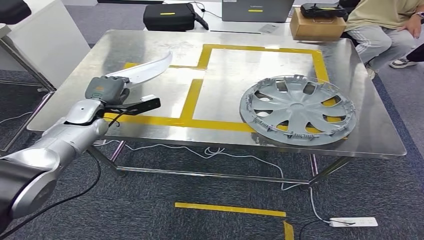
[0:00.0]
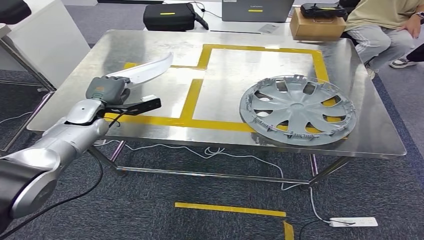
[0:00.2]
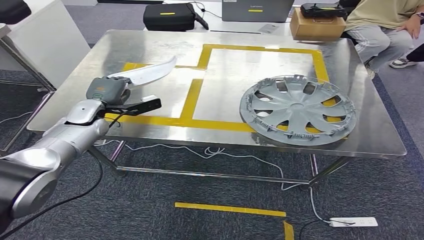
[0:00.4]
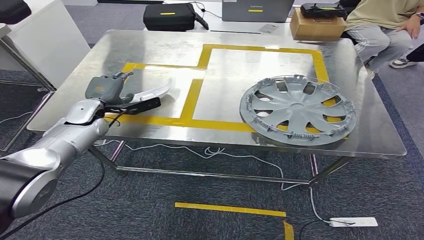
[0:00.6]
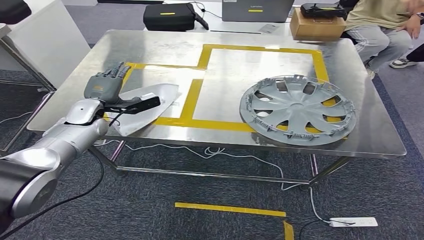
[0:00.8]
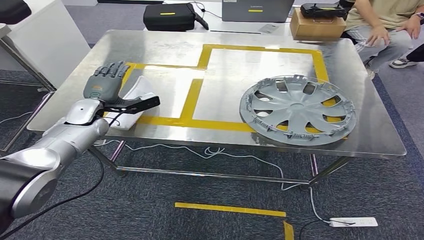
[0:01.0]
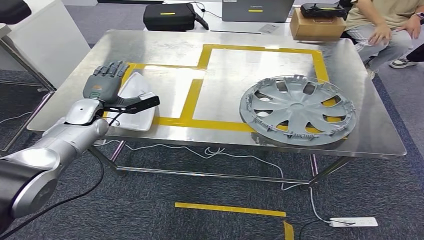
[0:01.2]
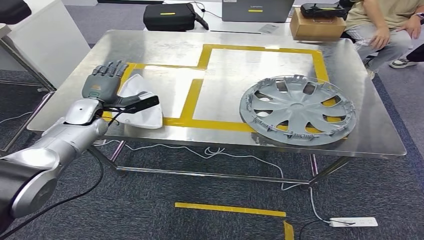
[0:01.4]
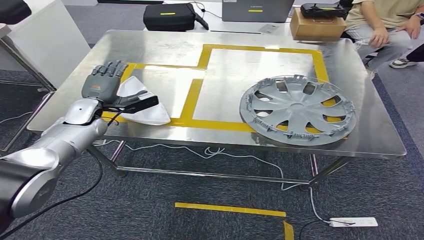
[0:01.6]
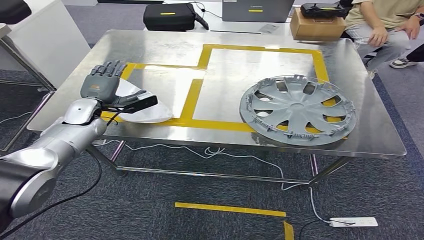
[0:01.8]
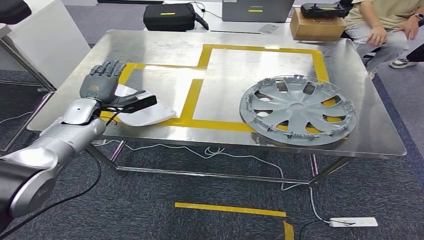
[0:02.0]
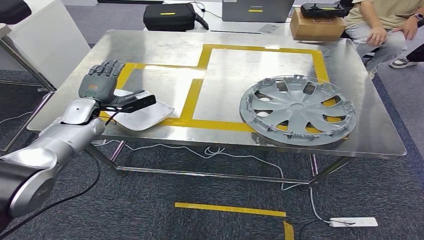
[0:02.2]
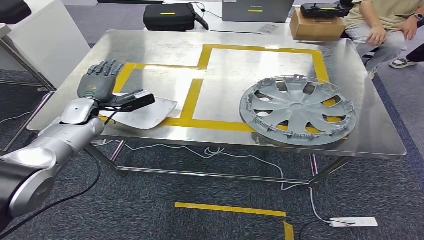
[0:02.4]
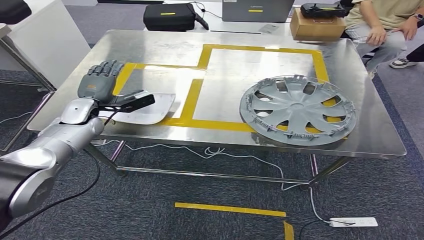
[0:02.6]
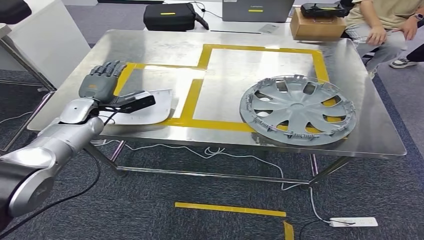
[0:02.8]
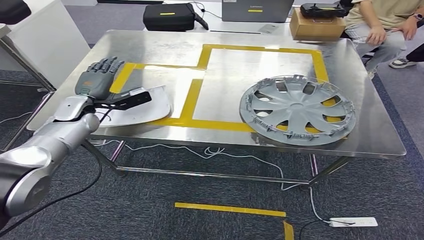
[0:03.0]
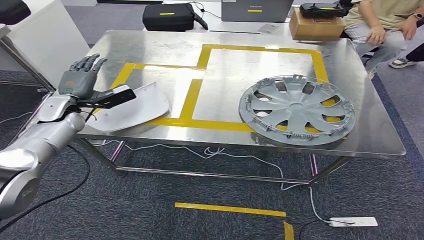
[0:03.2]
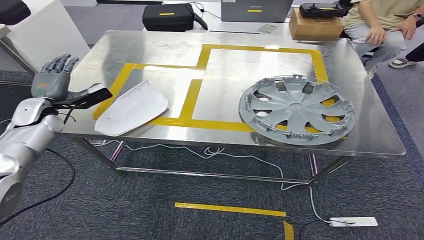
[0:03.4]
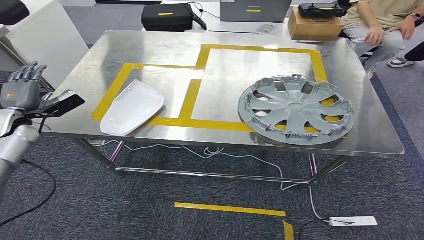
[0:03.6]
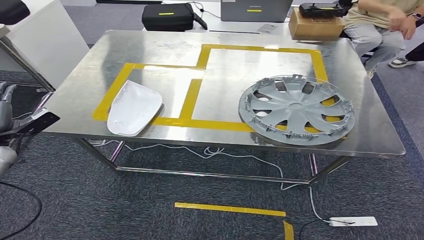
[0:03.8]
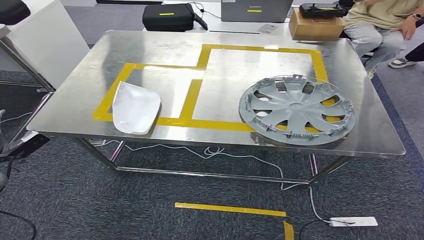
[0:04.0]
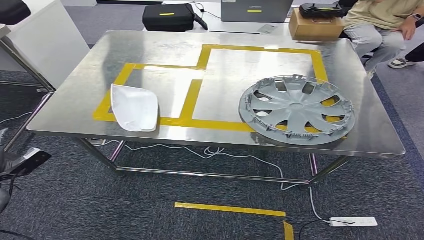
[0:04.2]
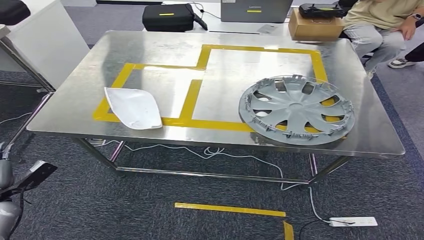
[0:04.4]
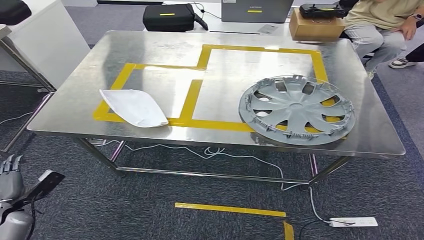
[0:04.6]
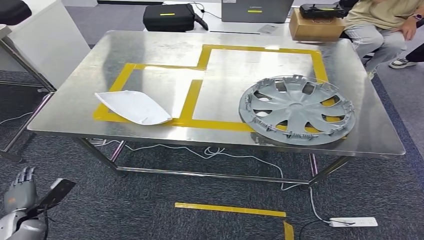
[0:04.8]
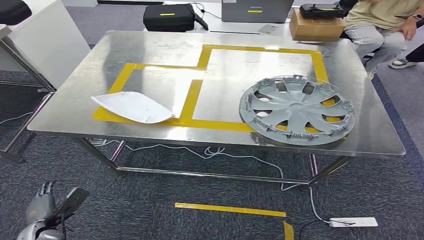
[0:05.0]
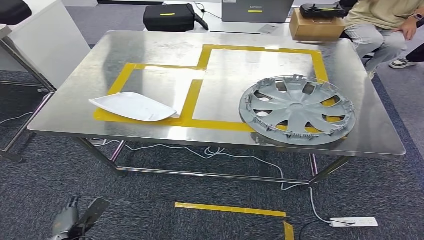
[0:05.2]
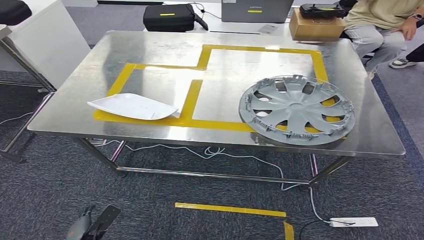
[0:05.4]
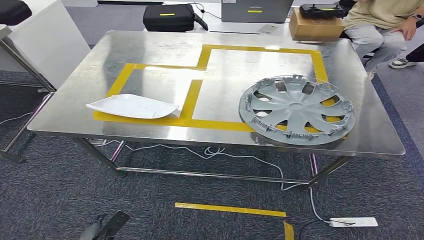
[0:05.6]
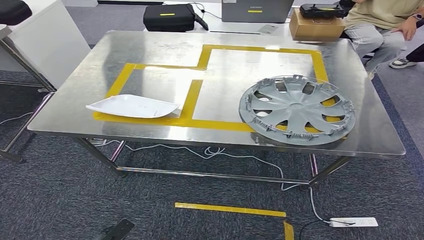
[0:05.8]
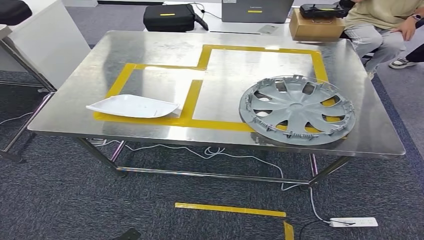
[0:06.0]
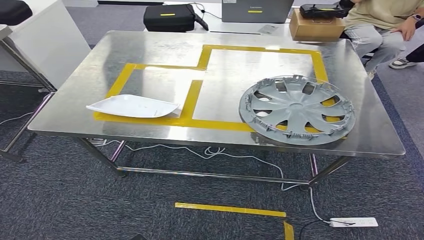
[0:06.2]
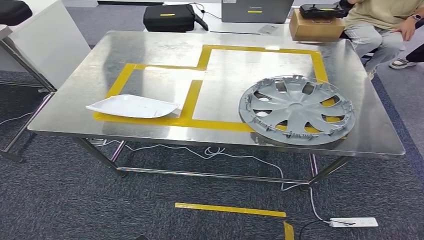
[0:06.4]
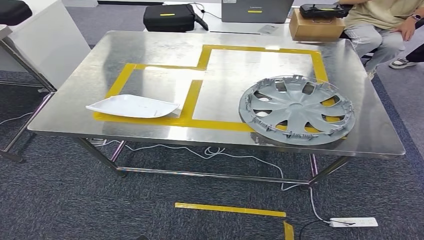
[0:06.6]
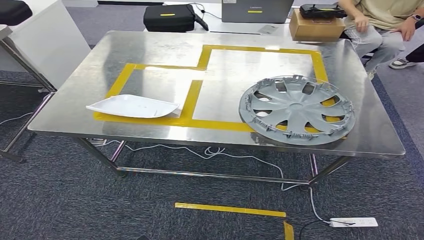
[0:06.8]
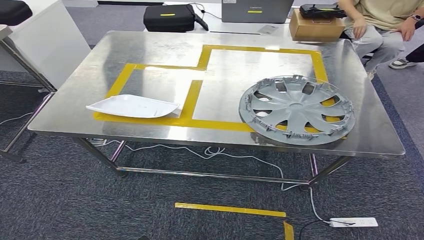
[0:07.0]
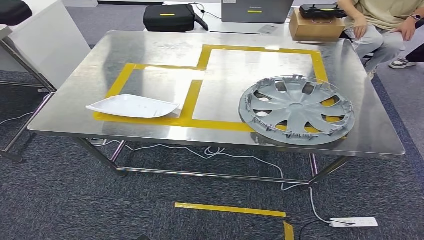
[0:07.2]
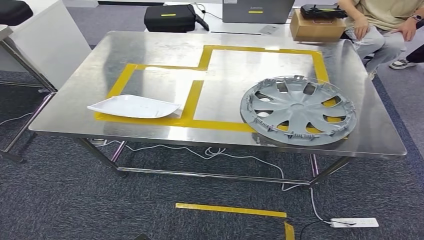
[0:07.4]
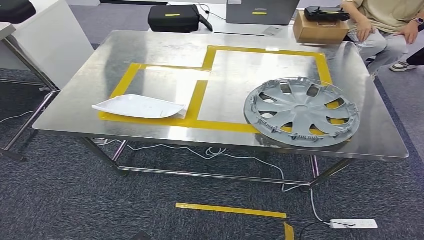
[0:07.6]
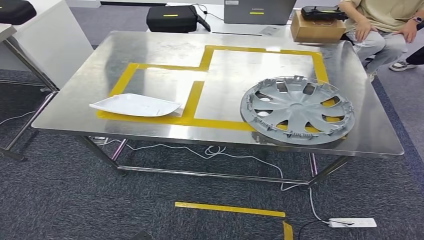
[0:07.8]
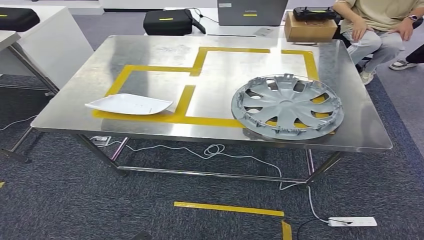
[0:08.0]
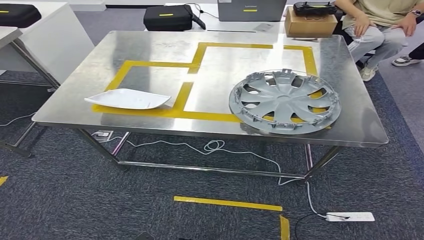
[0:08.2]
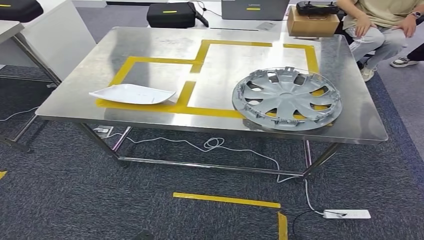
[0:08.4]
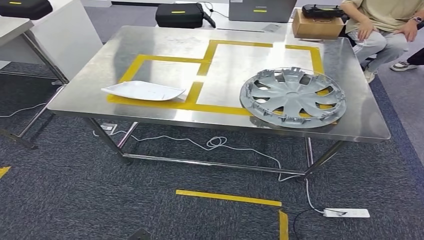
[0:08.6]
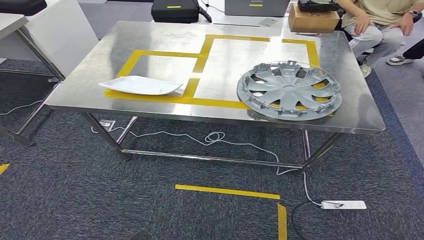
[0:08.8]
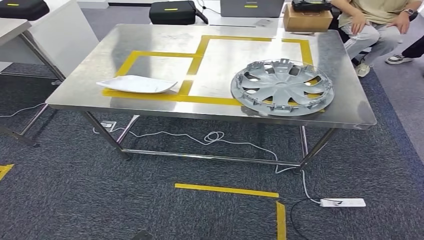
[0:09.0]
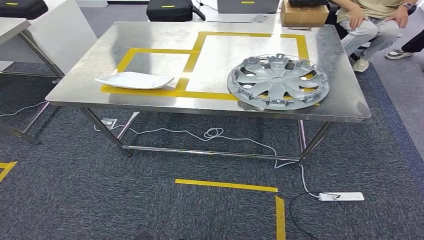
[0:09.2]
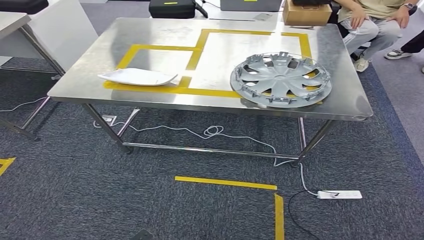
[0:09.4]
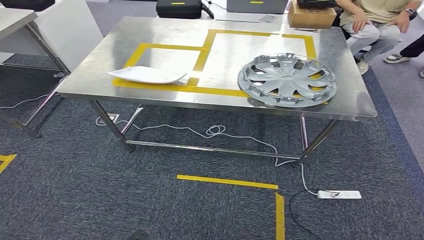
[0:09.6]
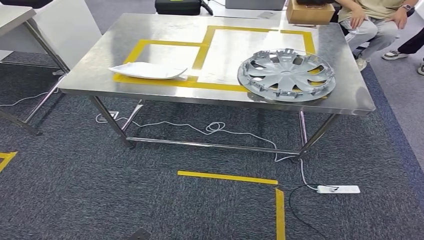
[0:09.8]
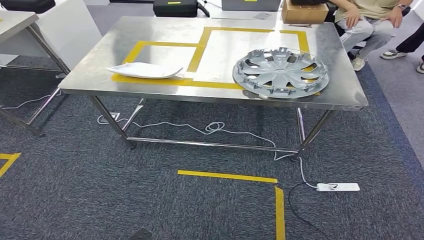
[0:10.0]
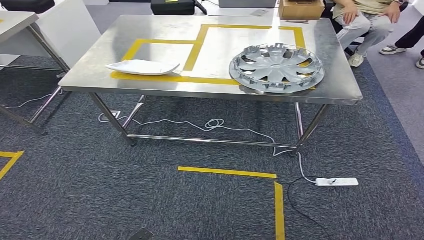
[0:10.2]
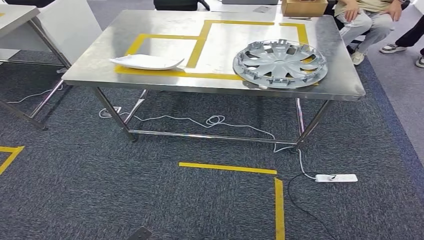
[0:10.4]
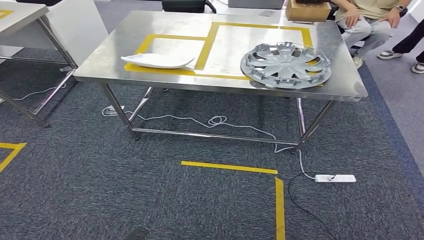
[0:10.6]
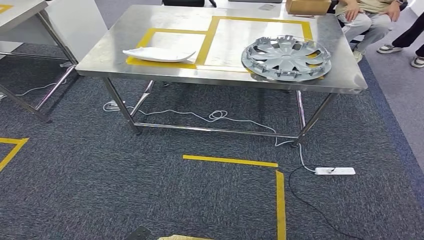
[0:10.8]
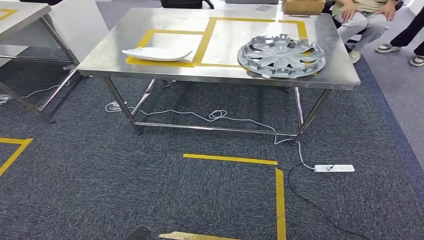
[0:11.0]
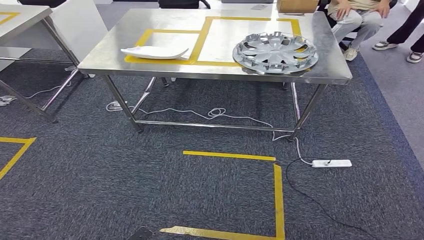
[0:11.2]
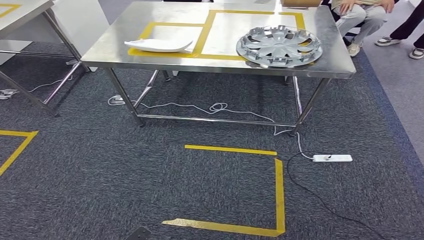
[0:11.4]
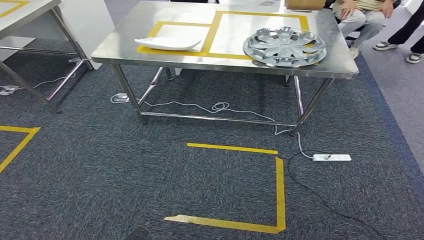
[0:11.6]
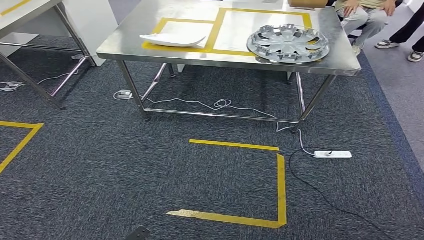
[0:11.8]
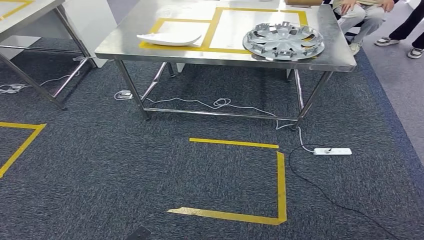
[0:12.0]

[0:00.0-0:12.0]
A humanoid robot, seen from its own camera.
Step, 0:00.0 to 0:03.6: Insert the small component into the corresponding slot on the workbench.
0:00.0 to 0:01.6: The two hands keep their place.
0:01.6 to 0:03.0: The hands stay close to where they were, moving slightly.
0:03.0 to 0:04.4: The left hand heads backward, downward and to the left, covering approximately 35 cm.
0:04.4 to 0:06.0: The left hand moves to the right, backward and downward, roughly 30 cm.
0:06.0 to 0:07.6: The hands make only small movements.

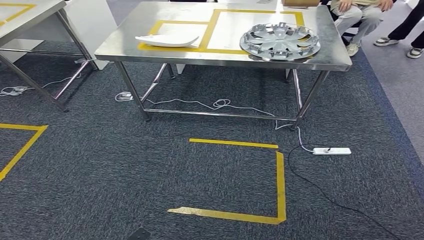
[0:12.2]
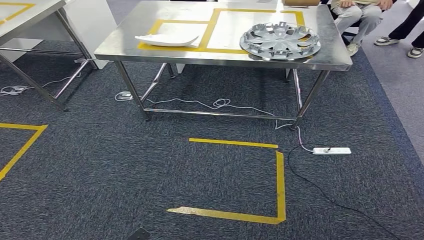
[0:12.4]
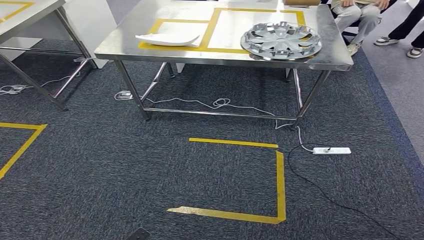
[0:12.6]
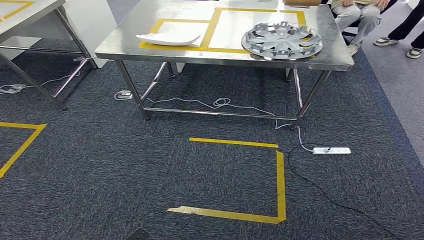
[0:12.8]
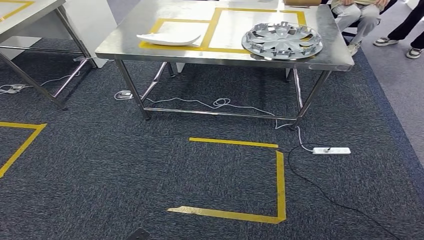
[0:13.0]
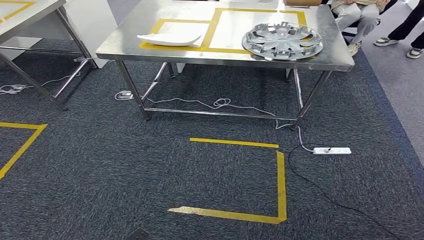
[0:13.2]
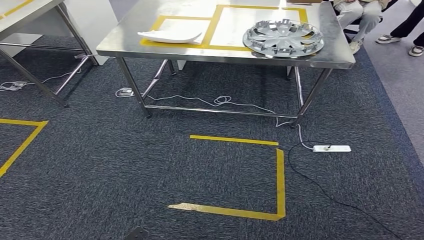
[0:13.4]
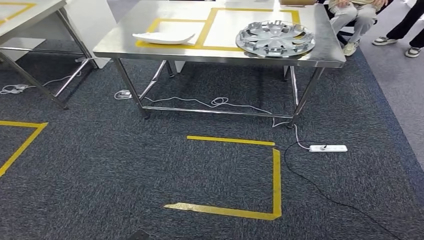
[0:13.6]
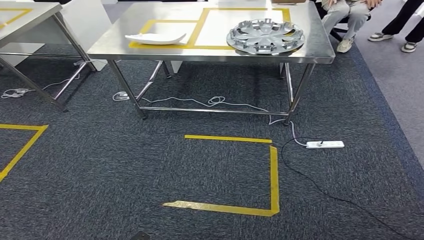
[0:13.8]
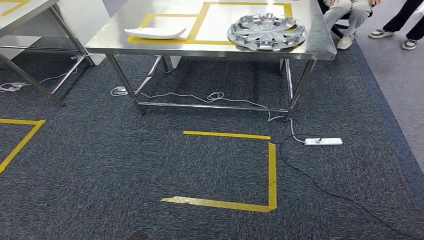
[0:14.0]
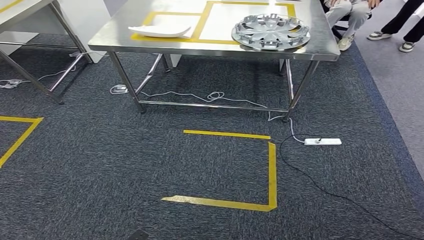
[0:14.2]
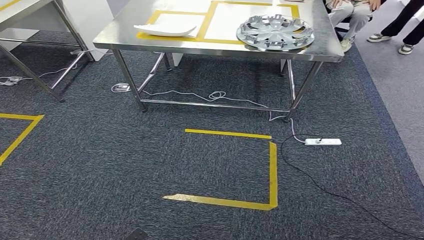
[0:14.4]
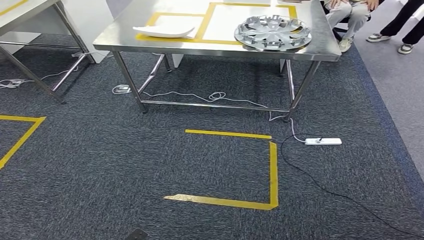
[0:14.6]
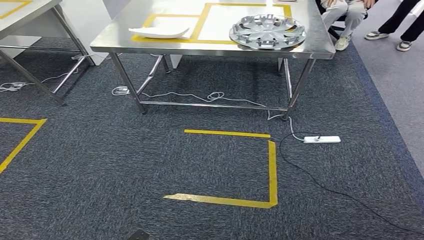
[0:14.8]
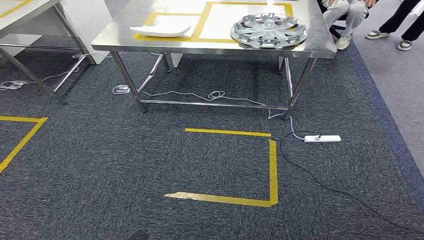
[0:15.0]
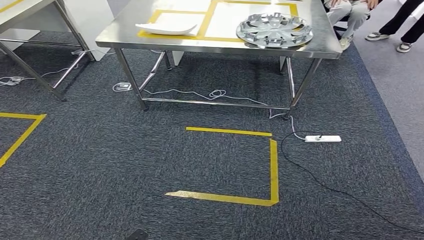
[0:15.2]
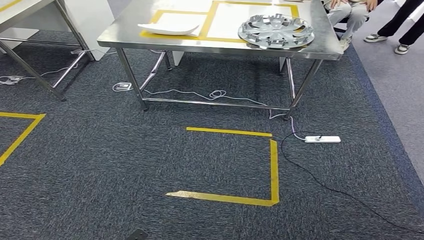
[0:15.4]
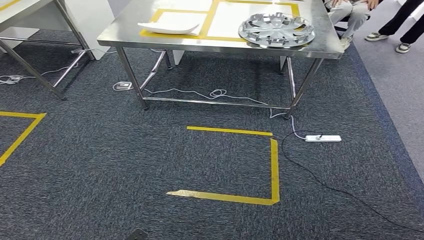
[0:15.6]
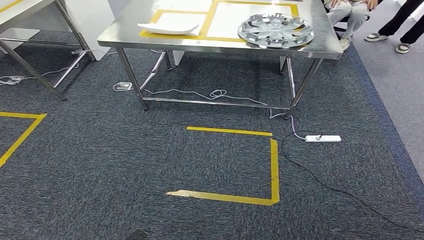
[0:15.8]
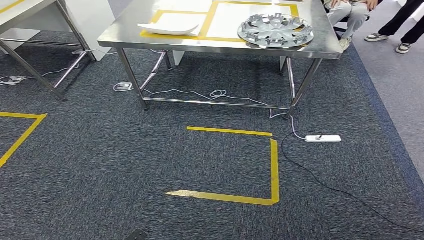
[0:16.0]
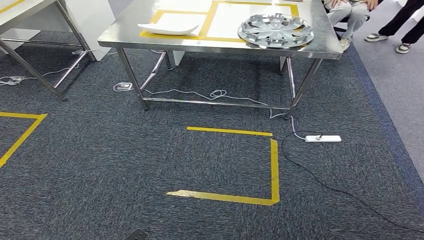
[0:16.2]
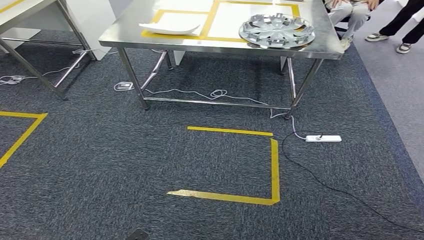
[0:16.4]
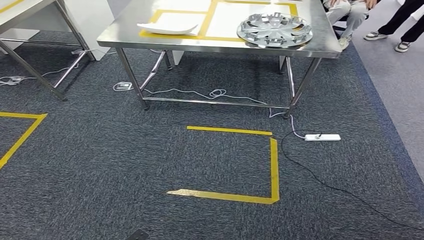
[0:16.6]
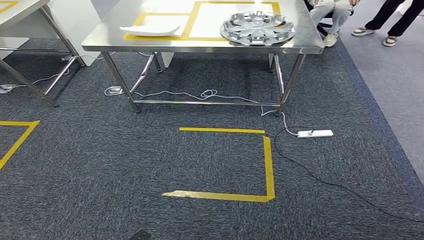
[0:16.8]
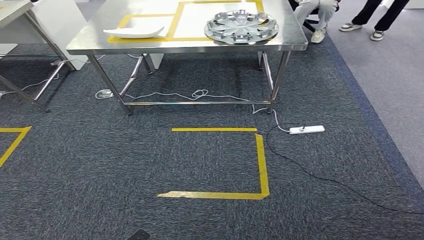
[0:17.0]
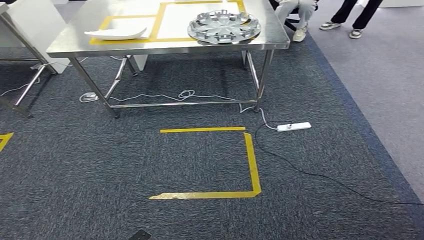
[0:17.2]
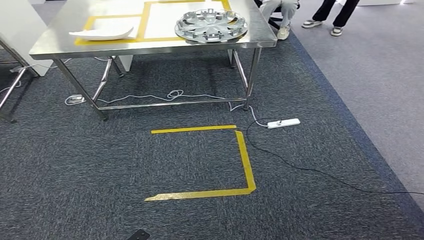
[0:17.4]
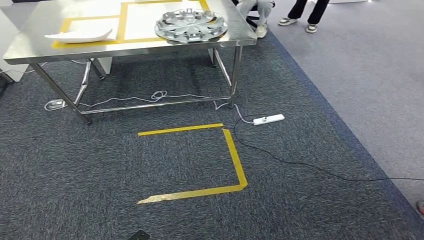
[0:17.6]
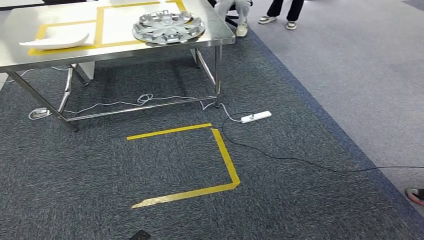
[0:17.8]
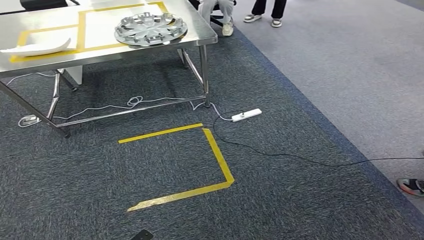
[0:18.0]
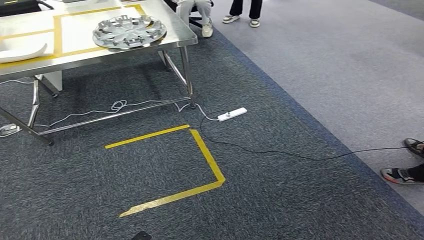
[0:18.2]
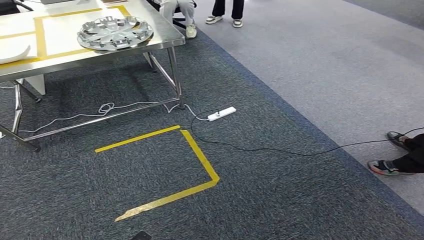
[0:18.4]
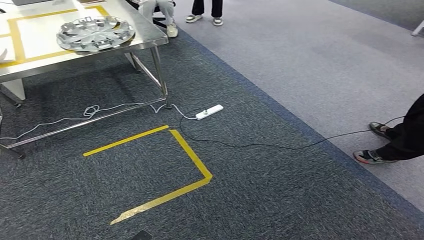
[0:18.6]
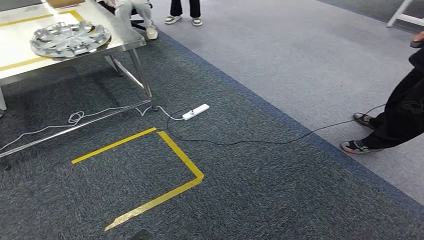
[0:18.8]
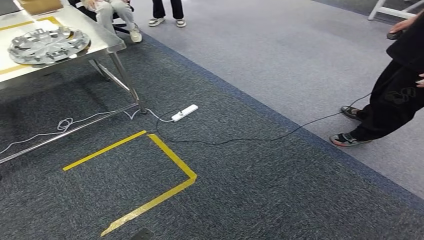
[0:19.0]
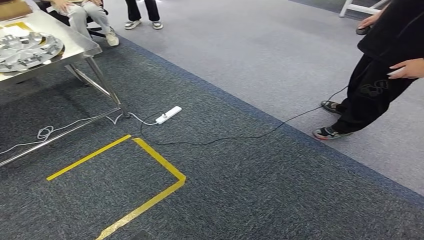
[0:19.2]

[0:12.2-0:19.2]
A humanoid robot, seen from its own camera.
0:12.2 to 0:13.6: Both hands stay about where they are.
0:15.0 to 0:16.4: The two hands keep their place.
